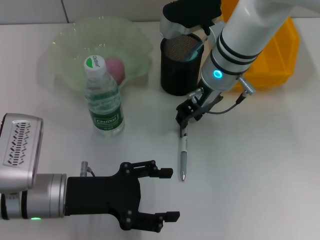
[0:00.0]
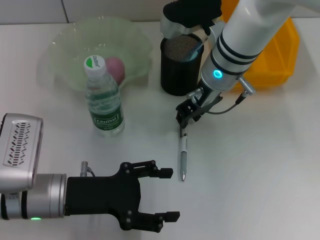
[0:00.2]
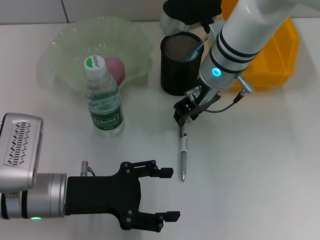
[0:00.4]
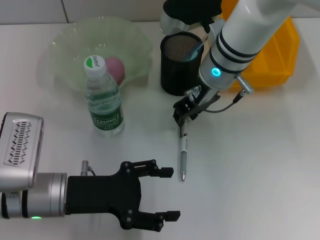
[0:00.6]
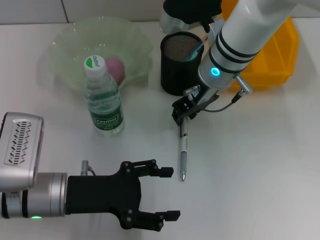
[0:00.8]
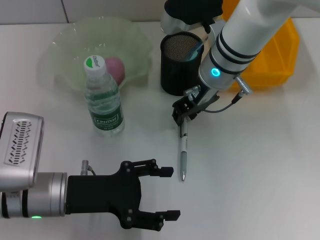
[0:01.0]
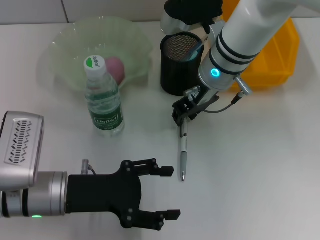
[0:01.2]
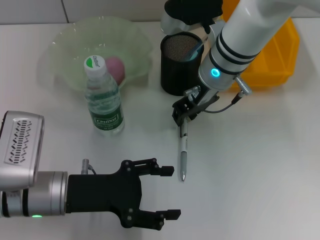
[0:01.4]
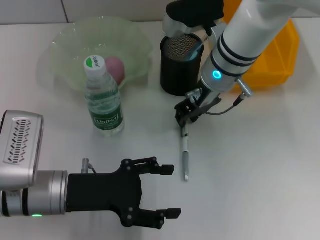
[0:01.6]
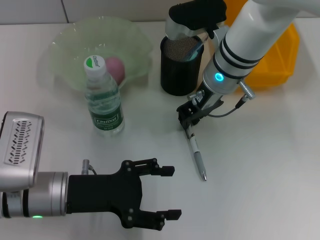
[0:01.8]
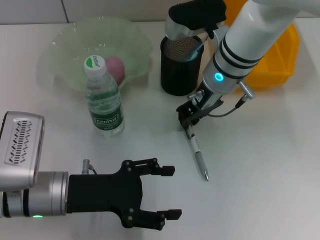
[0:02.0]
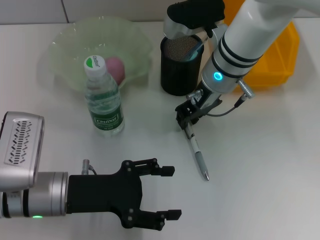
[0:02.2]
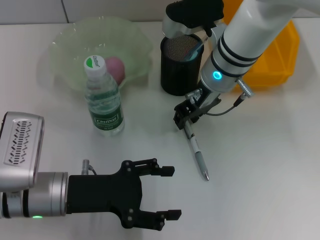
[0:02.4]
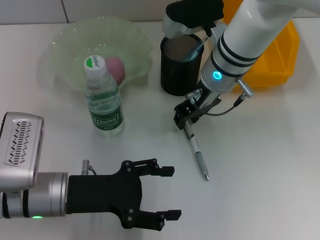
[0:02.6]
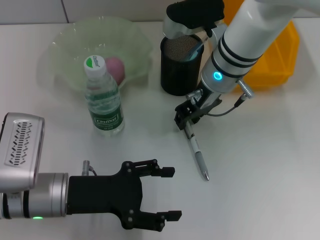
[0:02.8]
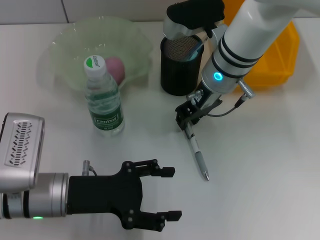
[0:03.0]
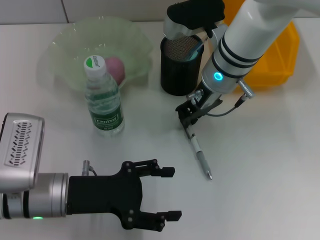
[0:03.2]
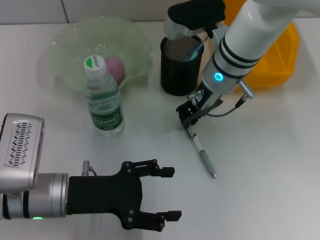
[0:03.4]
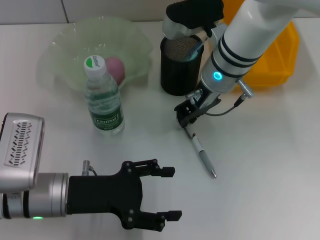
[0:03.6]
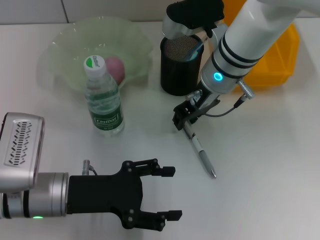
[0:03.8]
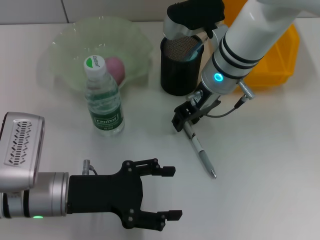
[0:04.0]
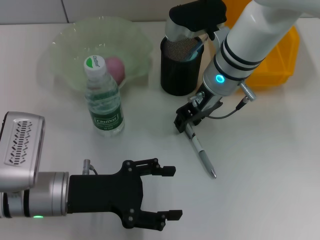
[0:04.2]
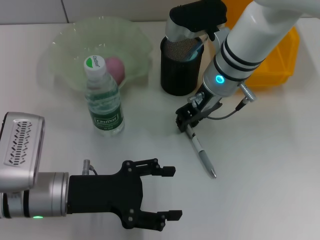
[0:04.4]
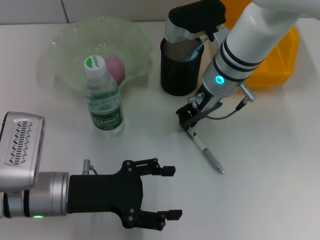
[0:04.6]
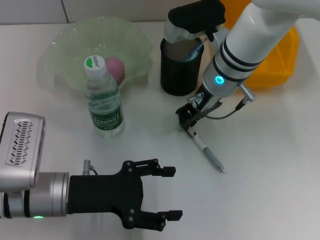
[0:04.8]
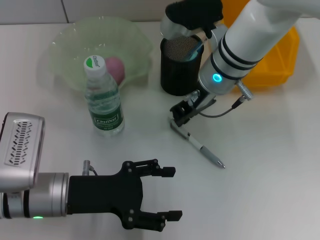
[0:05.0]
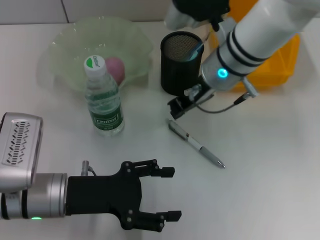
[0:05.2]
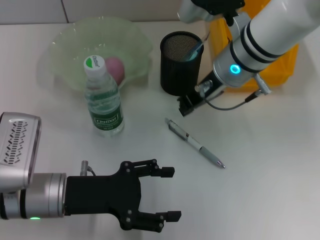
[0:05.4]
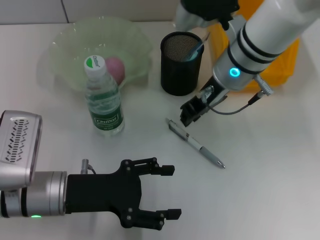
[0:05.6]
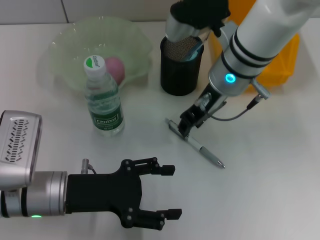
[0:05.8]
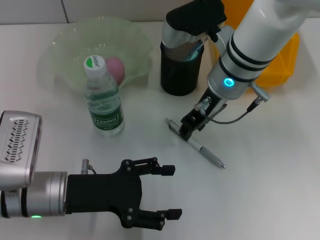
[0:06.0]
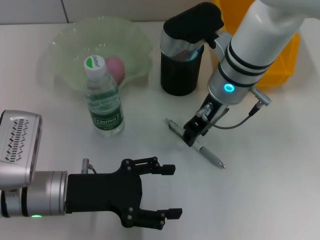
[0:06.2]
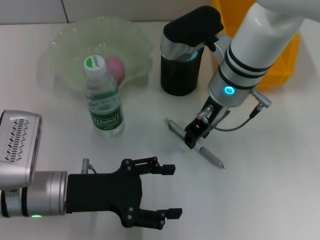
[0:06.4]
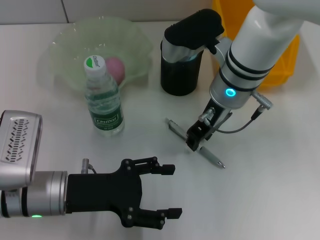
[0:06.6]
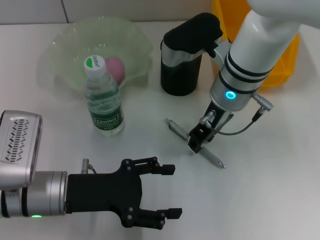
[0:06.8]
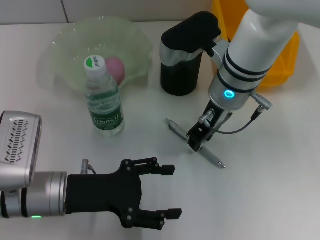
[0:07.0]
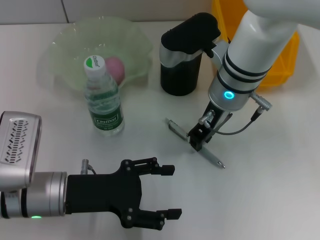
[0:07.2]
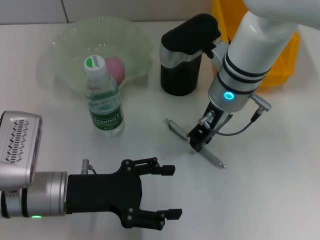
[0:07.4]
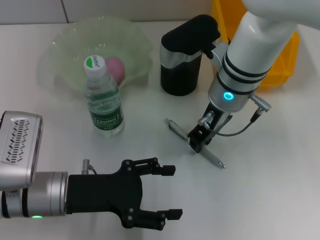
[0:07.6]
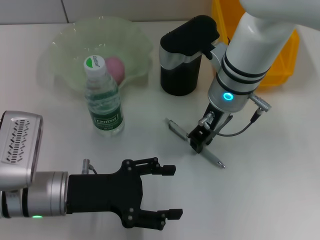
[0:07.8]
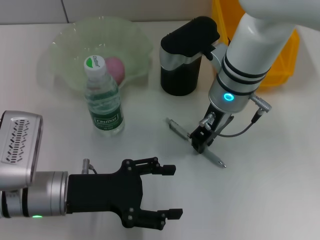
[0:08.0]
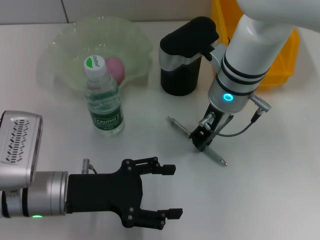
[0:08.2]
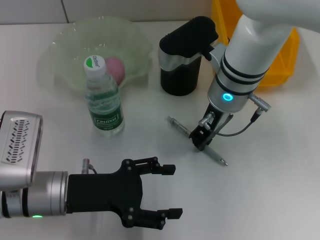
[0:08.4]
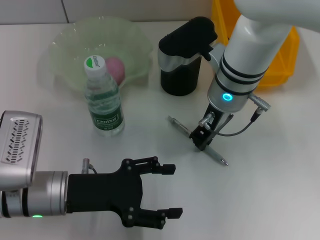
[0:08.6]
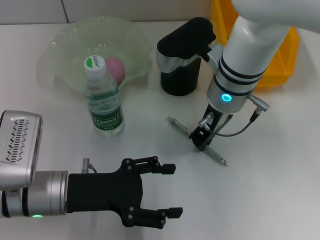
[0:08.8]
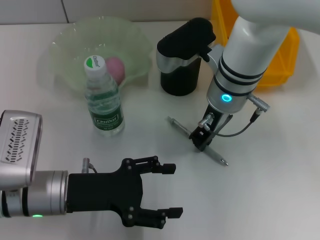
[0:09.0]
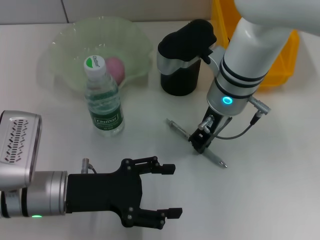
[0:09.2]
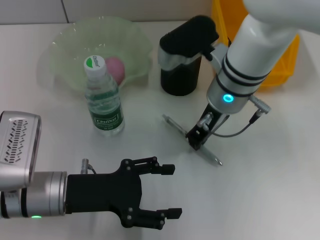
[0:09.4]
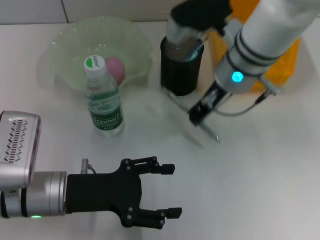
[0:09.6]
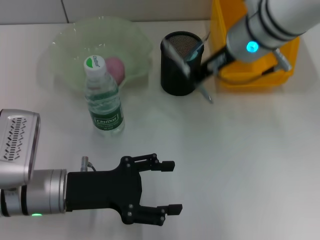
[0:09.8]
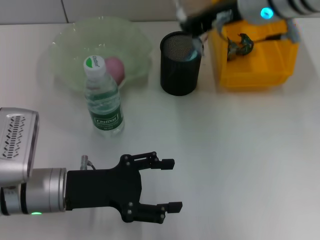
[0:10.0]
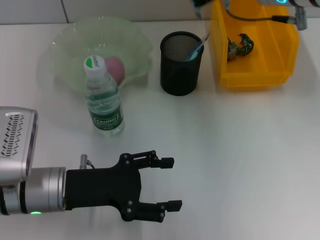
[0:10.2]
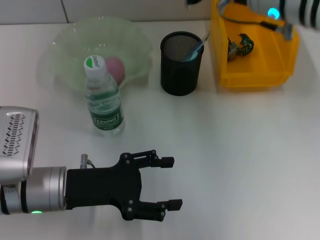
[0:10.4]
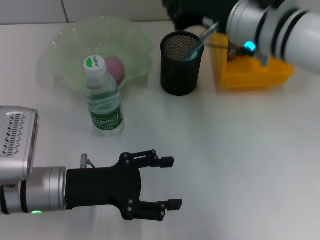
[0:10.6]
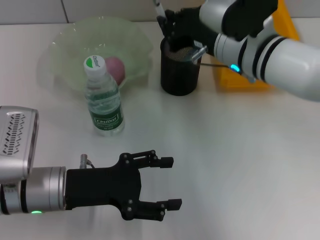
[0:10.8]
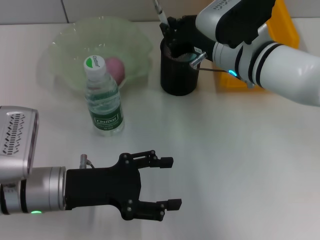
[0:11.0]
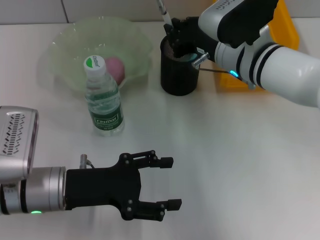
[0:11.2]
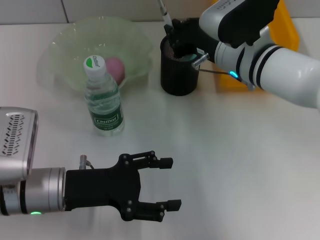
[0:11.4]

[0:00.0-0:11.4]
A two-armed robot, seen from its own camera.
Step, 0.0 to 8.8 s: Grab the gray spring-action pen with the right hand.
0.0 to 4.2 s: Both grippers stay about where they are.
4.2 to 5.6 s: The right gripper closes up.
5.6 to 7.2 s: The right gripper opens its fingers.
7.2 to 8.6 s: Both grippers stay about where they are.
8.6 to 10.0 s: The right gripper goes roughly 10 cm upward.
10.0 to 11.4 s: The right gripper heads downward, covering about 10 cm.

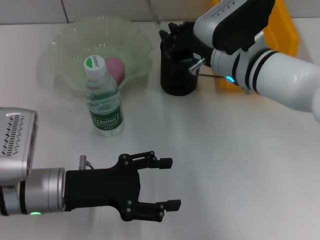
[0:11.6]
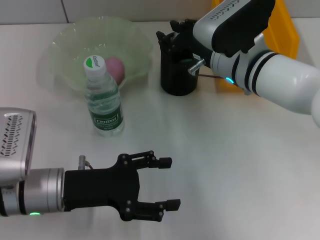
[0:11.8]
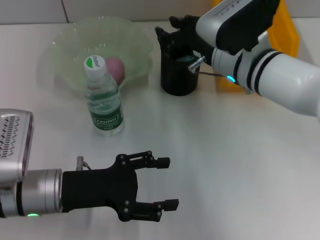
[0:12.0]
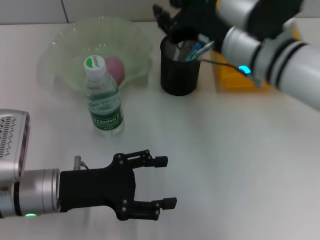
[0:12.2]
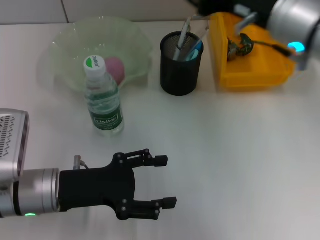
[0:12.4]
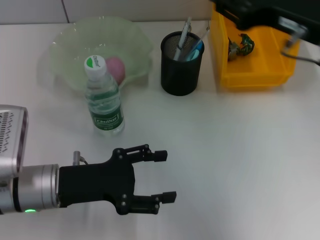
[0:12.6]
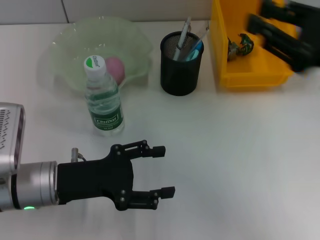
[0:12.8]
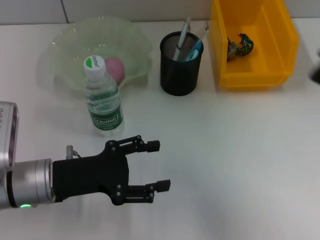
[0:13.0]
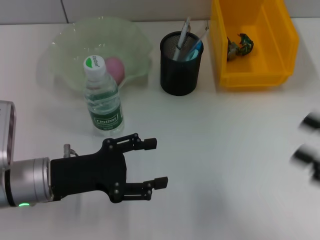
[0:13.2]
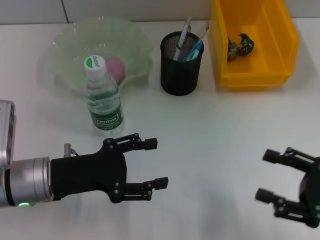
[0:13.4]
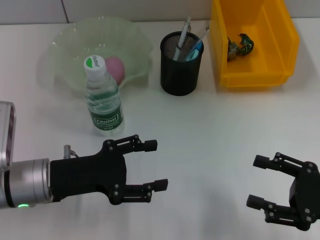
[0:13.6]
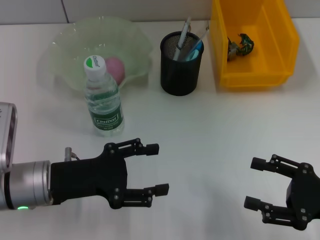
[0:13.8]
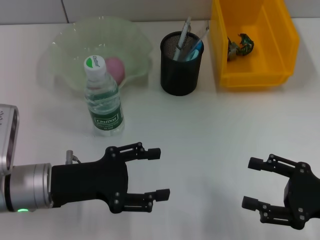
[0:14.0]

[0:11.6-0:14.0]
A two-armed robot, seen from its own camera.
11.6 to 12.8 s: The right gripper heads to the right, backward and upward, covering approximately 20 cm.
12.8 to 14.0 s: The right gripper heads downward, covering roughly 15 cm, and opens.

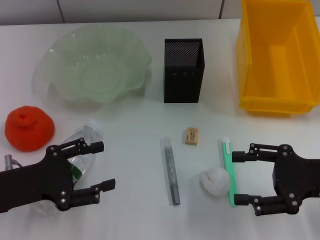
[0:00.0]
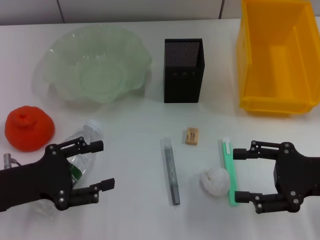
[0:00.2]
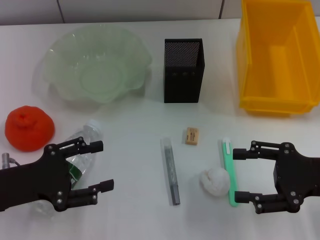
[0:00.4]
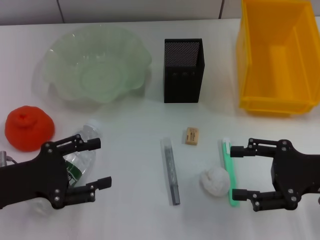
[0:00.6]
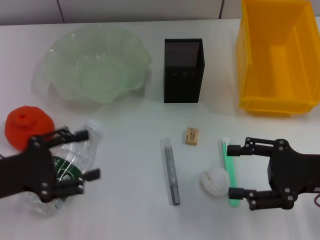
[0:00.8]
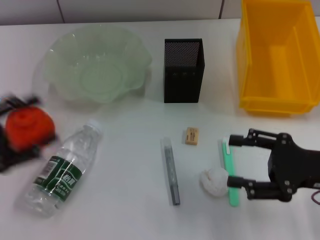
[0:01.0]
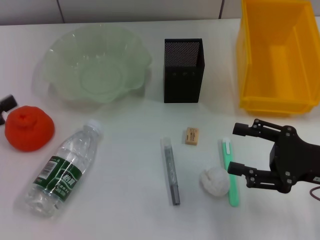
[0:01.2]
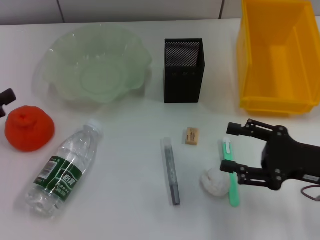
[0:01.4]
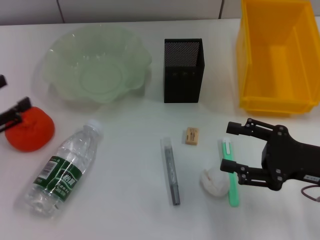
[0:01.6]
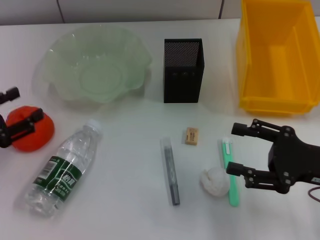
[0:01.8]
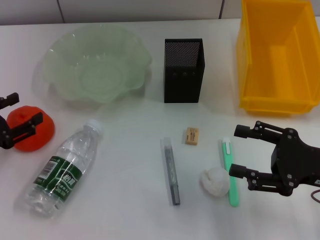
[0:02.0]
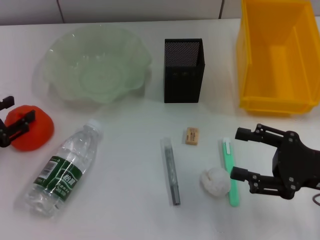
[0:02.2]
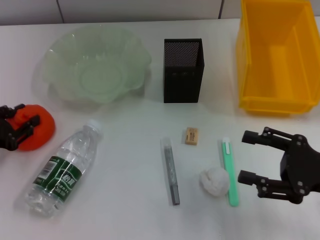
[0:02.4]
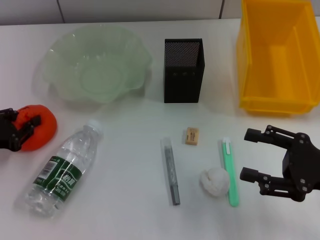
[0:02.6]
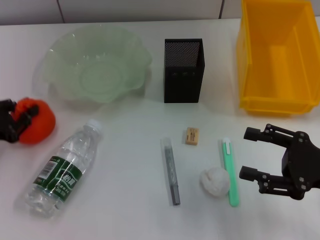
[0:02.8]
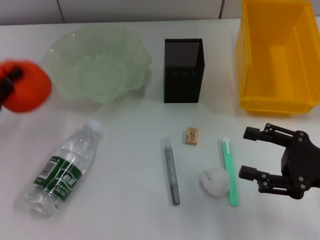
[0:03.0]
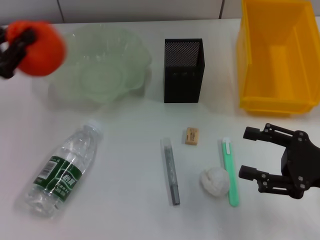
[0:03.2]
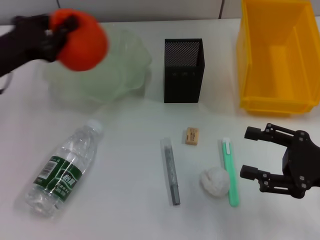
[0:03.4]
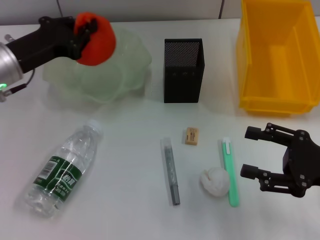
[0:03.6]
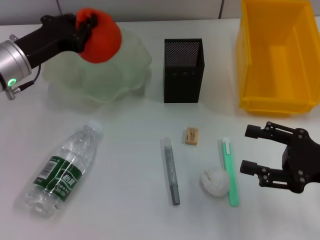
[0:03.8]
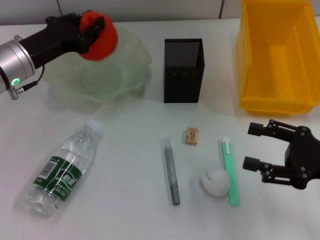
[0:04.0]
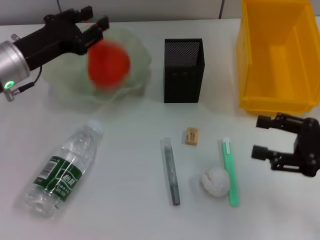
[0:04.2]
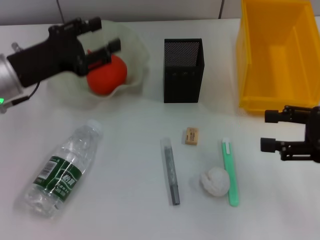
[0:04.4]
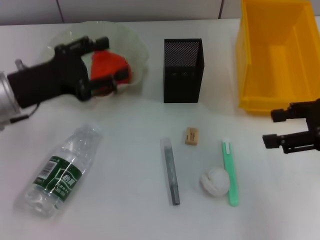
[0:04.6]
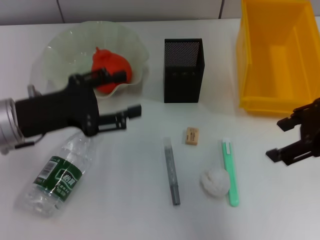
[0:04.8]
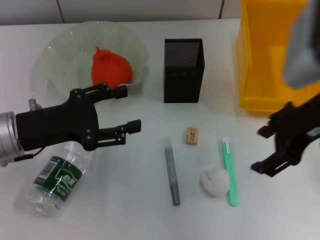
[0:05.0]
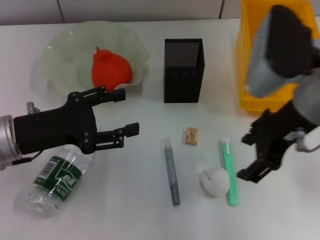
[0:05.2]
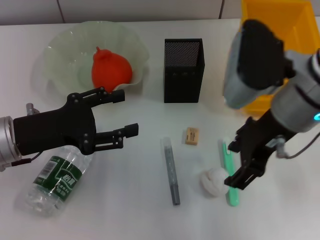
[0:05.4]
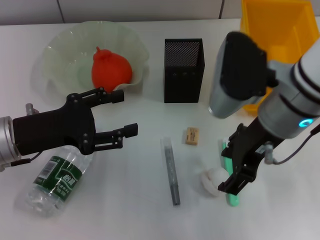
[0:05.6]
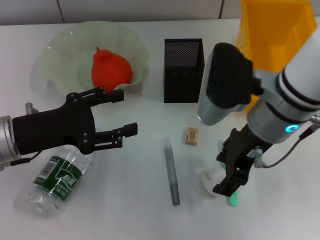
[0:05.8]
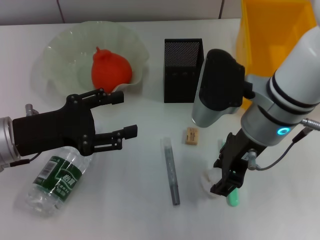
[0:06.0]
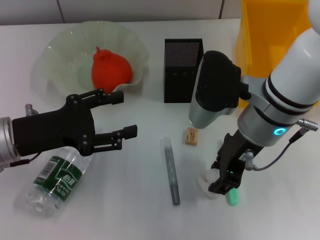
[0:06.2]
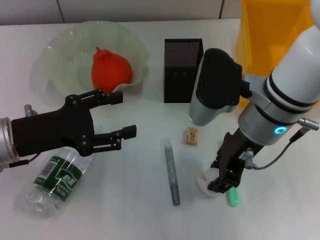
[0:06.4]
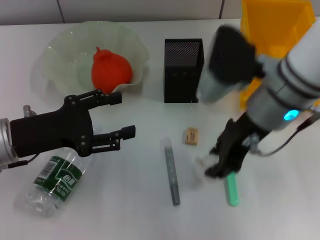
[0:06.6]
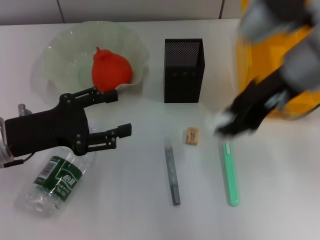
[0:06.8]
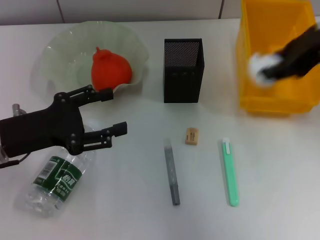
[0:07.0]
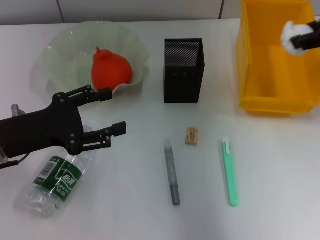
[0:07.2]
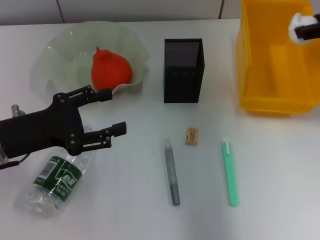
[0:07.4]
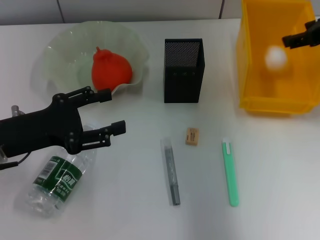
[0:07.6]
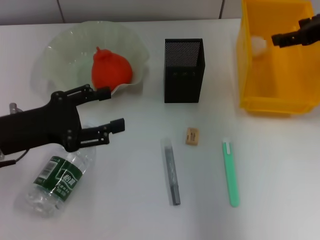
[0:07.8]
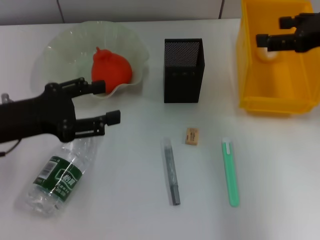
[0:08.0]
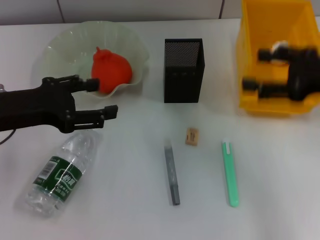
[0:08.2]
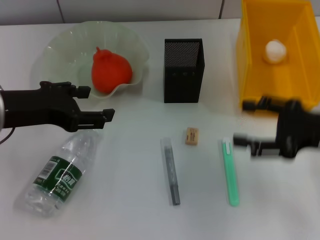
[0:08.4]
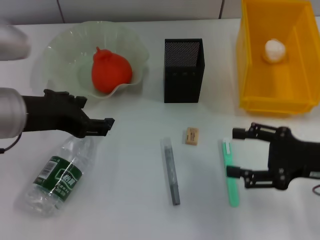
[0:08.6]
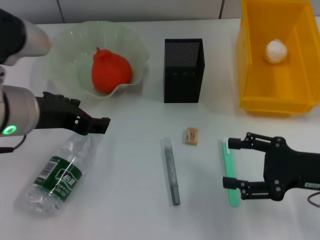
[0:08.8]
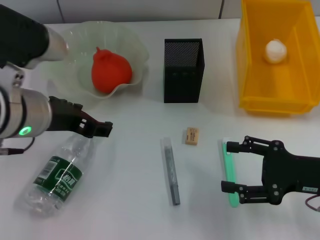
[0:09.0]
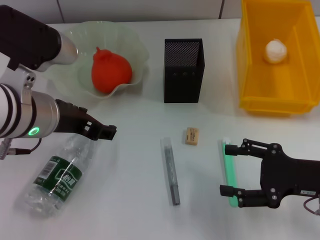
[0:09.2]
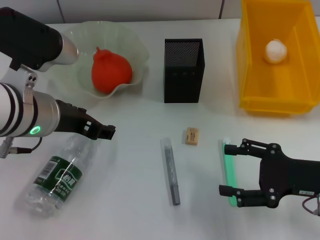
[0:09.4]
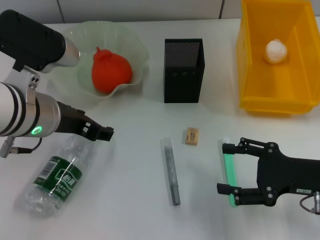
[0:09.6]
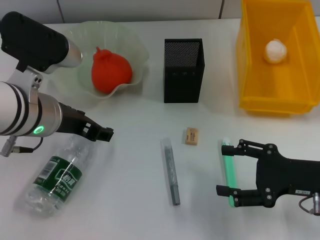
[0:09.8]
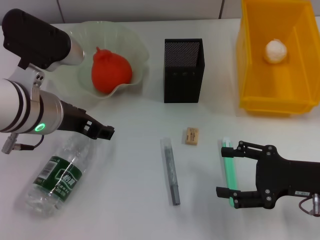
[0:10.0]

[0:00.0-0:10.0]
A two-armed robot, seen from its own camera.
Step, 0.0 to 2.4 s: Grab the orange with the left hand.
Step, 2.6 to 4.4 s: Place the orange into the fruit bowl with the left hand.
Step, 4.6 to 6.0 s: Grab the paper ball with the right hand.
Step, 6.4 to 7.8 s: Place the paper ball into the trash can with the right hand.
0.0 to 1.4 s: The left gripper travels to the left and upward by approximately 10 cm.
1.4 to 2.8 s: The left gripper goes some 5 cm downward, and closes its fingers.
2.8 to 4.2 s: The left gripper moves forward, to the right and upward, about 15 cm.
4.2 to 5.8 s: The right gripper heads to the left and upward, covering about 20 cm. Meanwhile the left gripper shifts some 10 cm backward, and opens up.
5.8 to 7.2 s: The right gripper shifts about 20 cm to the right and upward, and closes its fingers.
7.2 to 8.6 s: The left gripper heads upward and to the right, covering roughly 10 cm. Meanwhile the right gripper goes some 20 cm downward and backward, and opens its fingers.
8.6 to 10.0 s: The left gripper shifts by roughly 5 cm.
